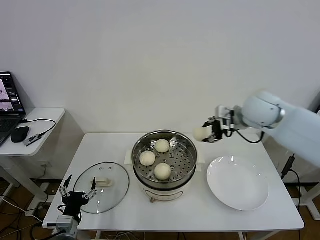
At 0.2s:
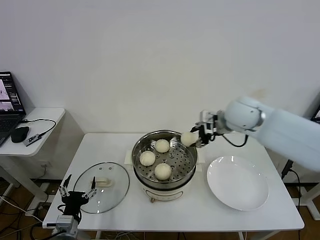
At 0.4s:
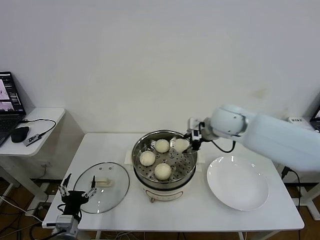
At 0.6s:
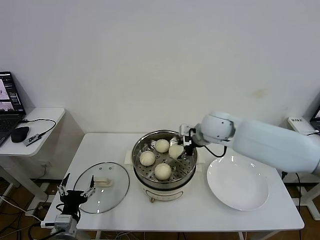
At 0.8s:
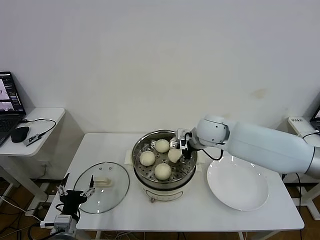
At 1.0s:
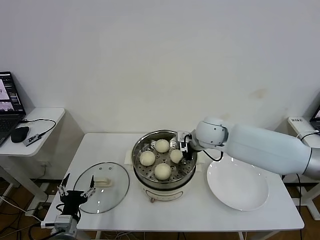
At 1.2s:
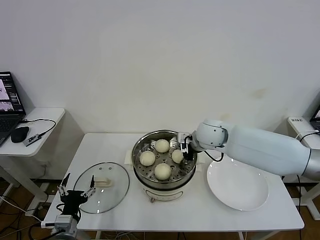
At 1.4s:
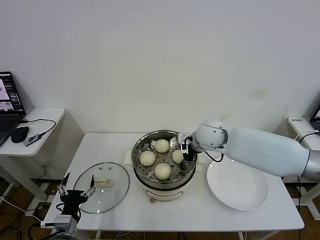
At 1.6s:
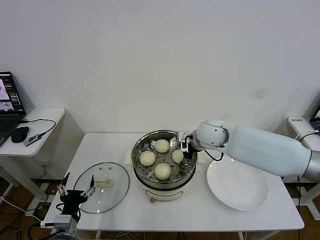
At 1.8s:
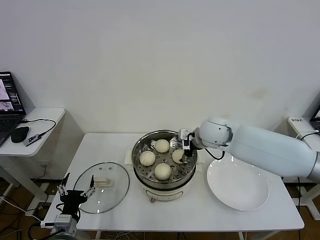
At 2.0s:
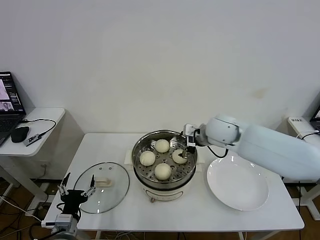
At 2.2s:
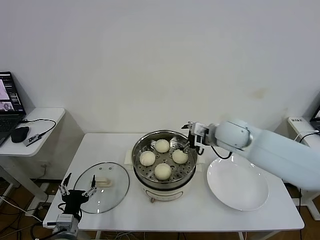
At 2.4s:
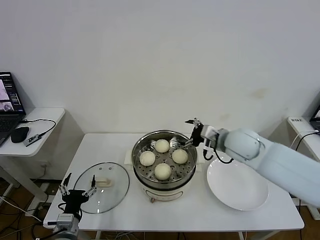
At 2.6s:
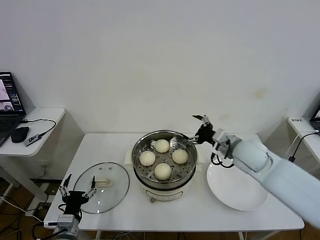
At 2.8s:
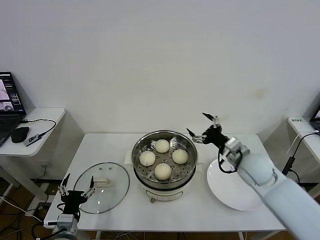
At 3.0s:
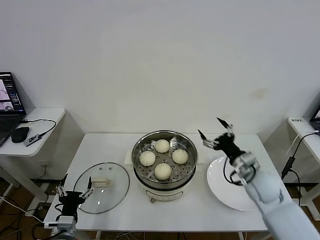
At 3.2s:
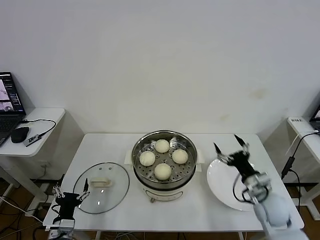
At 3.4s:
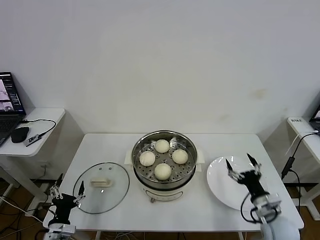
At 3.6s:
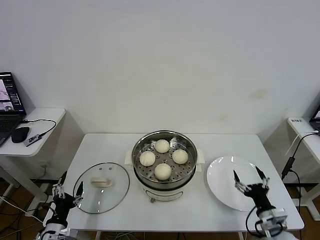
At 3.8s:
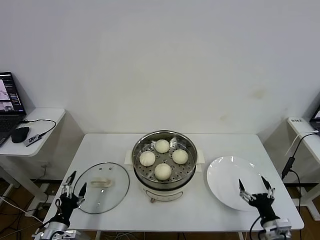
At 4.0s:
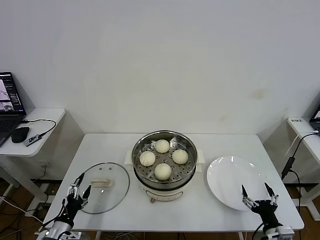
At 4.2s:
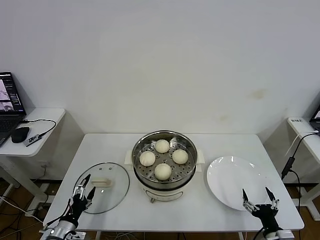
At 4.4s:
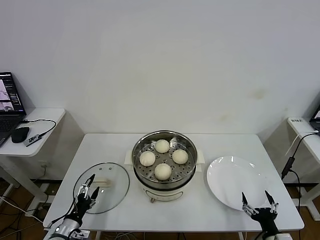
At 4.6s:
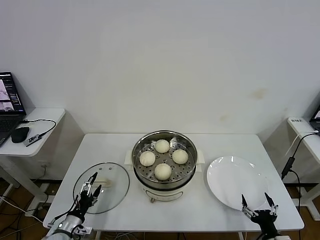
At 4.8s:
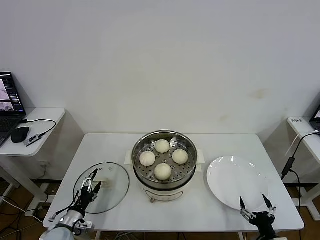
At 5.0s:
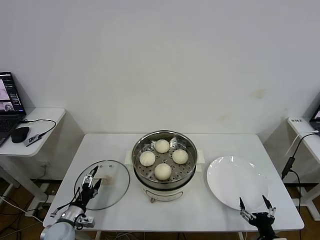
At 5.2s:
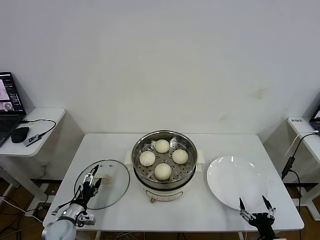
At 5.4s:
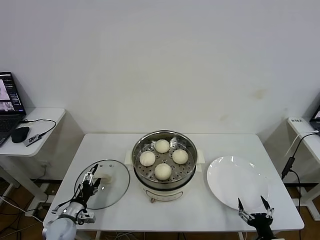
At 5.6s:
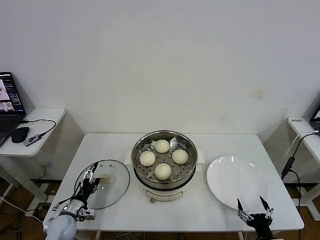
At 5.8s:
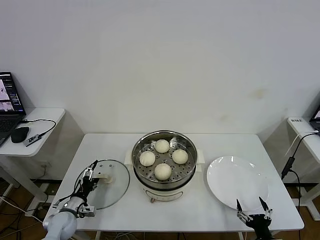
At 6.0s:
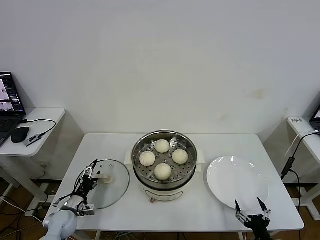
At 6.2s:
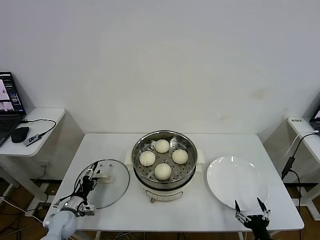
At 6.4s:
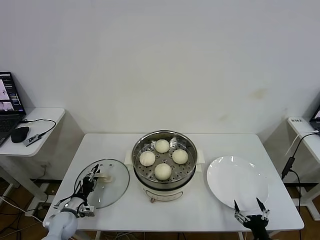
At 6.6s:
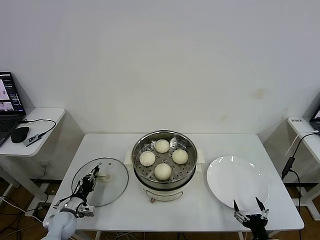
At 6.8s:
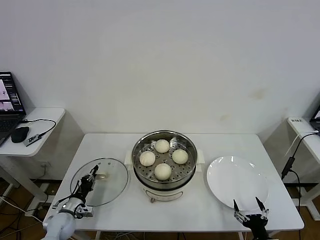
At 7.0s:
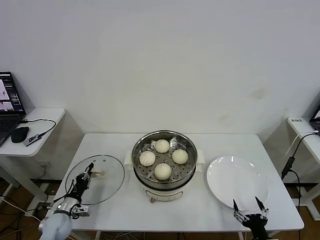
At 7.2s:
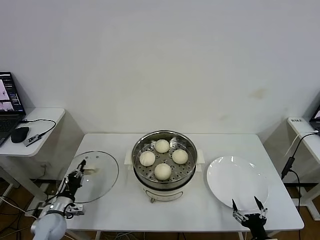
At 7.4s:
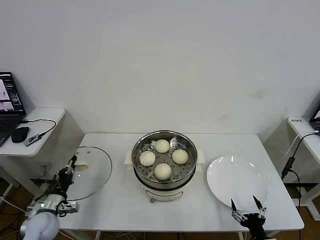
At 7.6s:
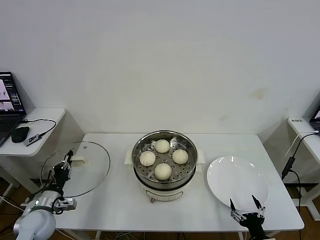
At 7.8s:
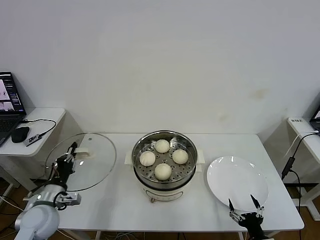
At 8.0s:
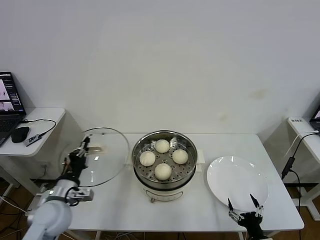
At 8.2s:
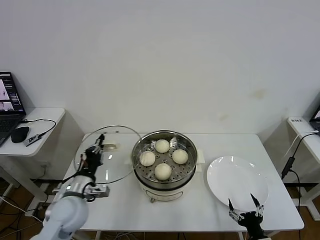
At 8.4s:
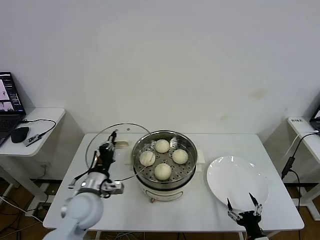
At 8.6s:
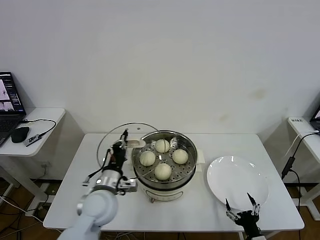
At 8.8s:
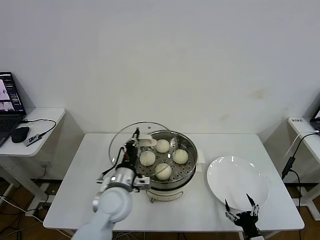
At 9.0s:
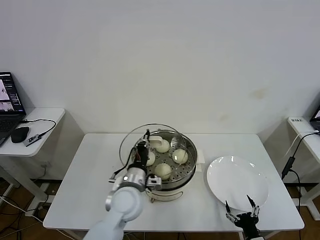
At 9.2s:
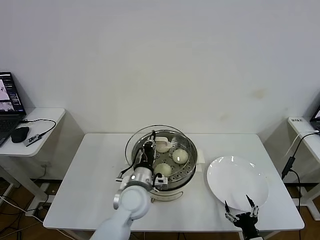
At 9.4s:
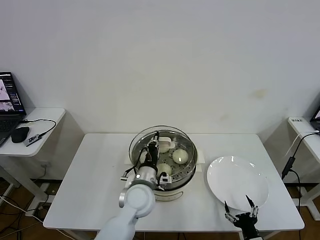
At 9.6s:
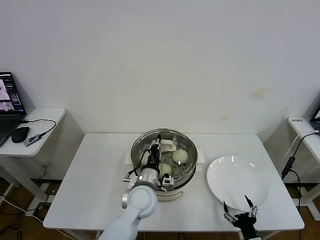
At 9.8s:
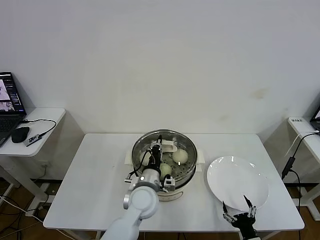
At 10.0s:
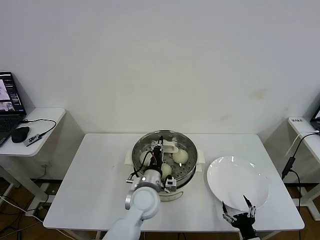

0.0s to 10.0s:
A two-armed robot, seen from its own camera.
Task of the whole recording: take steamed baozi put them in steamer then cover it.
Step, 0.0s to 1.6s: Place the baozi on the steamer with right gripper.
Step, 1.8s to 6.8s: Grasp the pot lid with left gripper.
0.0s to 1.4s: The right gripper heads to the left and downward, covering about 15 cm.
1.4s to 2.8s: The right gripper is displaced to the right and backward by some 15 cm, and opens.
2.8s to 4.2s: The left gripper is displaced to the left by some 5 cm, while the right gripper heads backward and downward, covering some 30 cm.
4.2s to 5.8s: The left gripper is displaced forward by roughly 10 cm.
5.8s to 7.2s: The left gripper closes its fingers.
7.2s to 8.6s: The left gripper shifts about 25 cm to the right and upward.
8.6s to 10.0s: The left gripper moves to the right, about 15 cm.

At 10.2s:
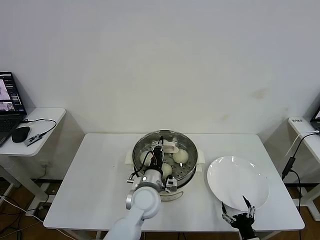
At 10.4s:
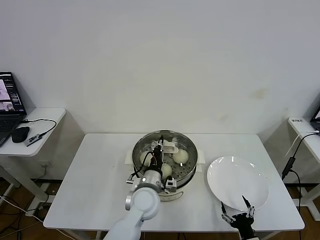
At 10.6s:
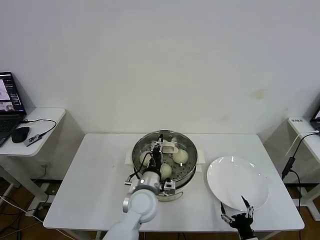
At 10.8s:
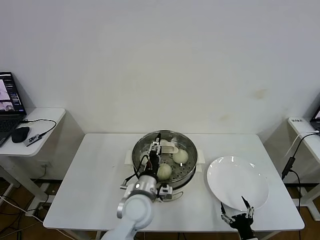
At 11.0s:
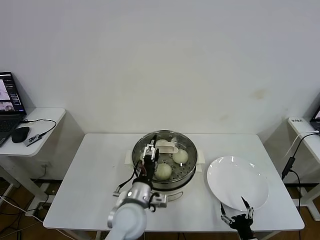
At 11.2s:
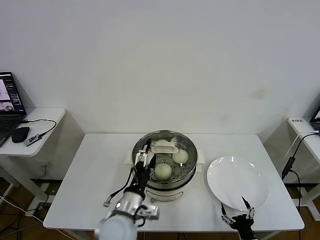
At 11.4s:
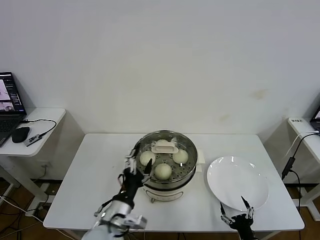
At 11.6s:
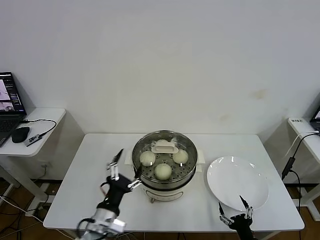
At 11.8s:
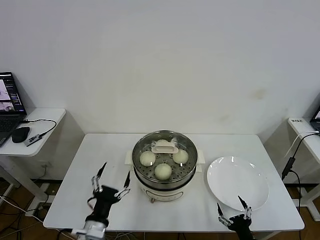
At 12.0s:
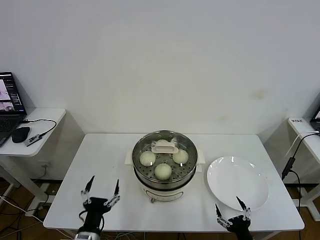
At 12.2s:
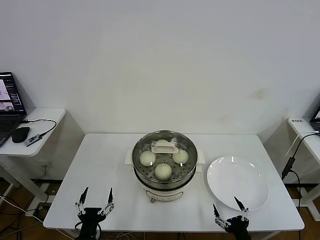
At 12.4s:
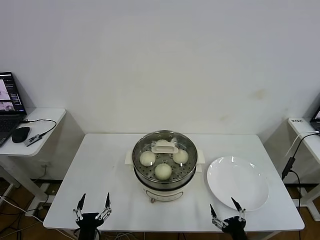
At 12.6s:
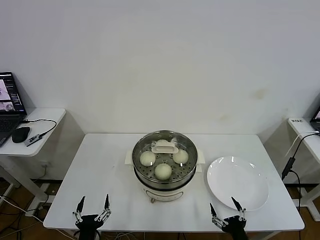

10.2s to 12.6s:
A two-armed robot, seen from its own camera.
Task of the whole recording: take steamed baozi put them in steamer then cover it.
10.2s to 11.4s: The left gripper goes about 15 cm backward and to the left, and opens up.
11.4s to 12.6s: The left gripper is displaced downward, to the left and backward by roughly 20 cm.

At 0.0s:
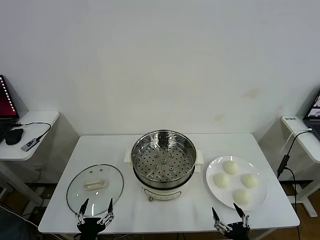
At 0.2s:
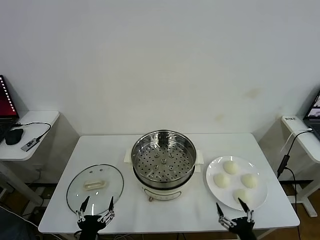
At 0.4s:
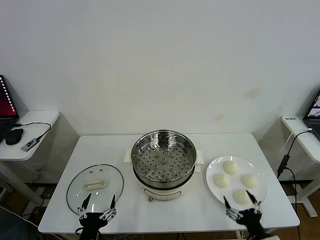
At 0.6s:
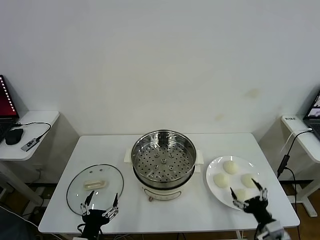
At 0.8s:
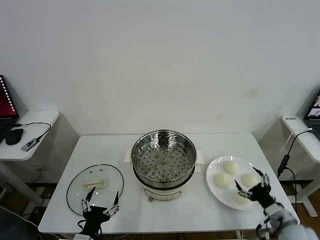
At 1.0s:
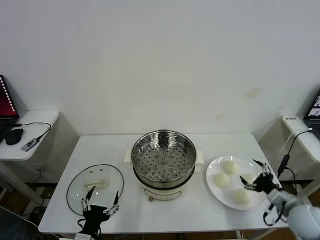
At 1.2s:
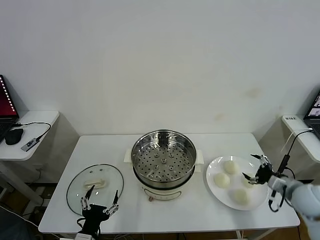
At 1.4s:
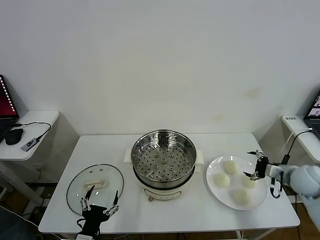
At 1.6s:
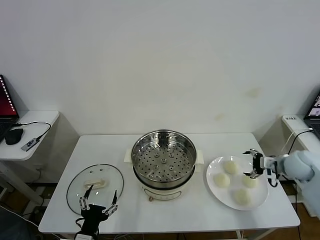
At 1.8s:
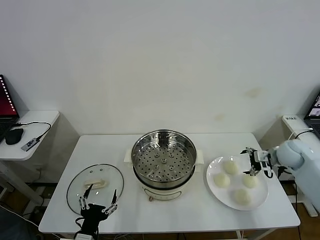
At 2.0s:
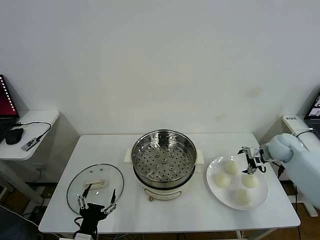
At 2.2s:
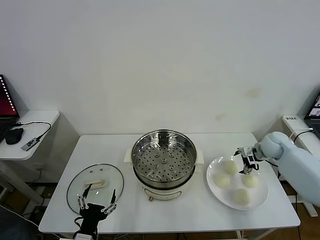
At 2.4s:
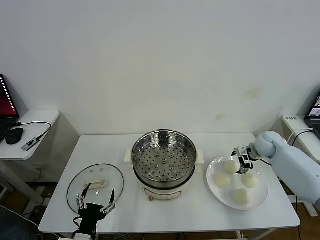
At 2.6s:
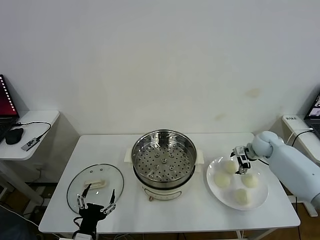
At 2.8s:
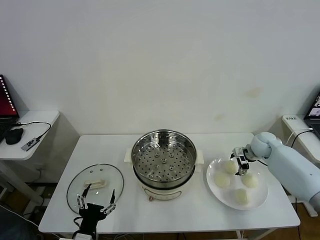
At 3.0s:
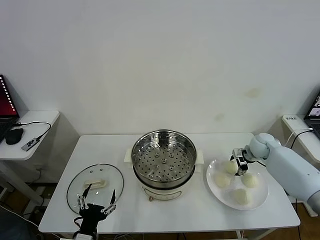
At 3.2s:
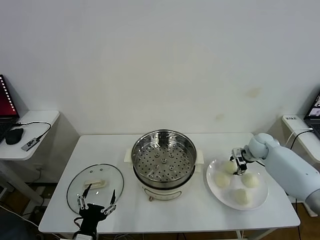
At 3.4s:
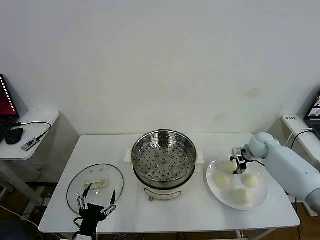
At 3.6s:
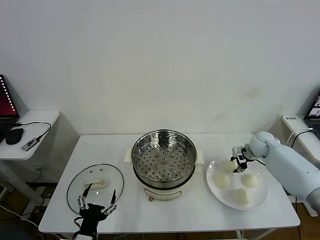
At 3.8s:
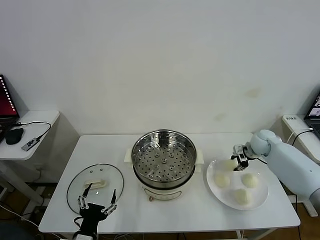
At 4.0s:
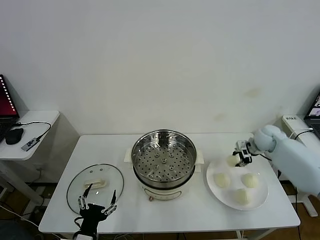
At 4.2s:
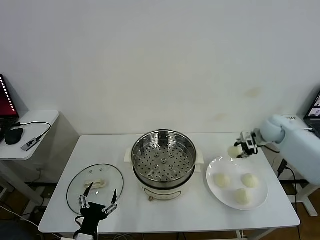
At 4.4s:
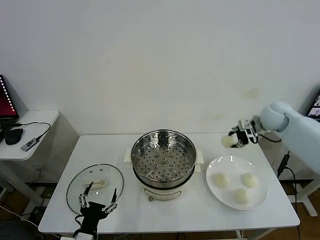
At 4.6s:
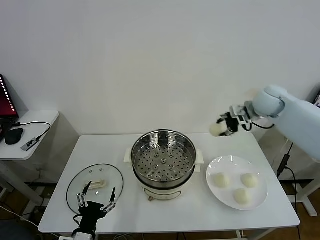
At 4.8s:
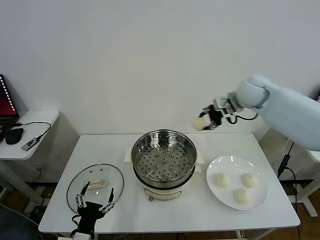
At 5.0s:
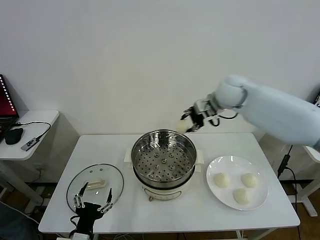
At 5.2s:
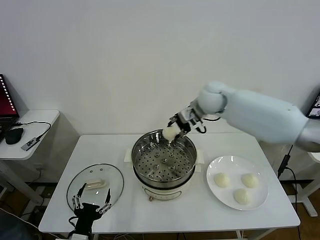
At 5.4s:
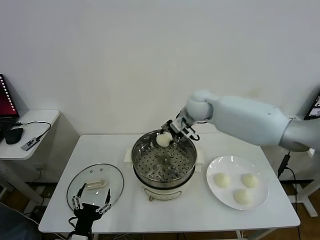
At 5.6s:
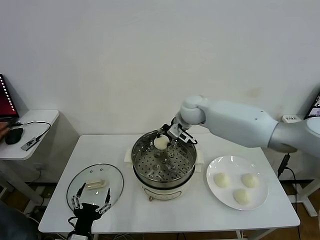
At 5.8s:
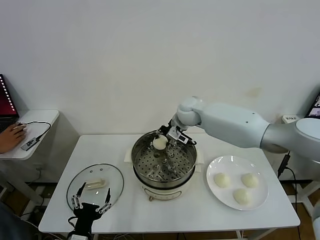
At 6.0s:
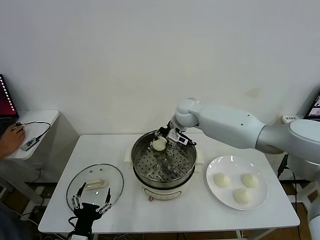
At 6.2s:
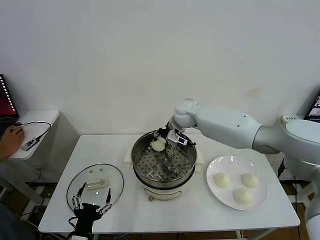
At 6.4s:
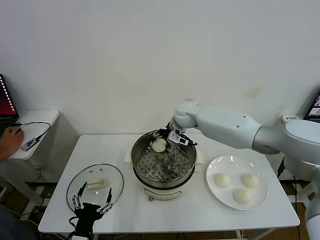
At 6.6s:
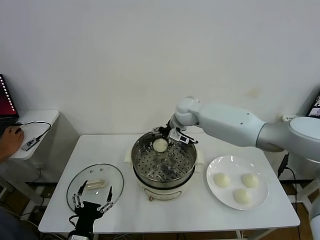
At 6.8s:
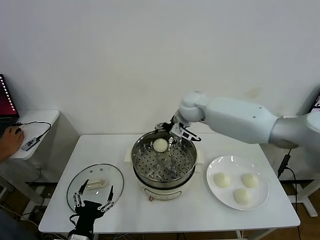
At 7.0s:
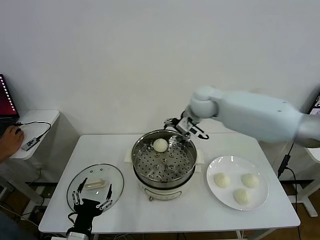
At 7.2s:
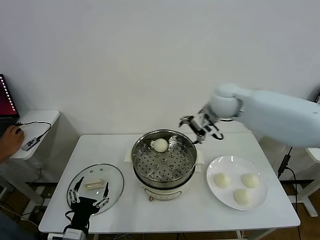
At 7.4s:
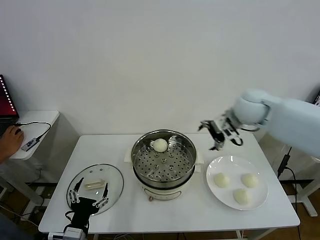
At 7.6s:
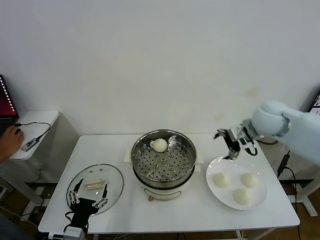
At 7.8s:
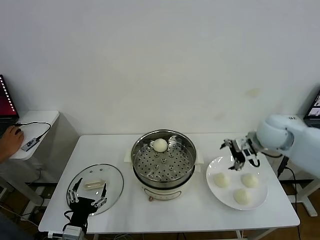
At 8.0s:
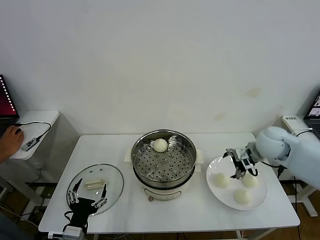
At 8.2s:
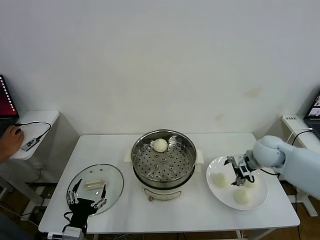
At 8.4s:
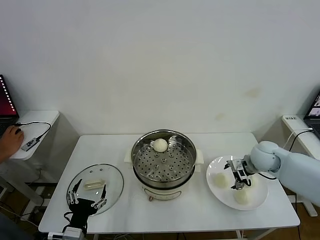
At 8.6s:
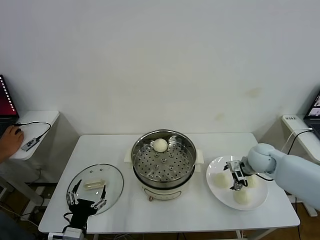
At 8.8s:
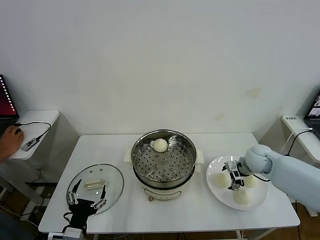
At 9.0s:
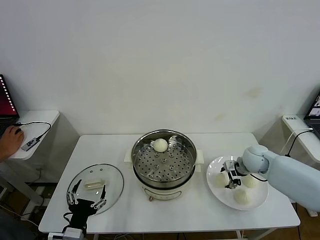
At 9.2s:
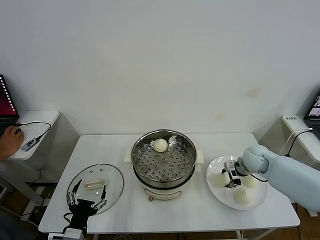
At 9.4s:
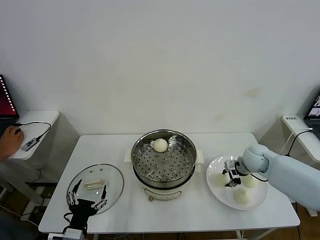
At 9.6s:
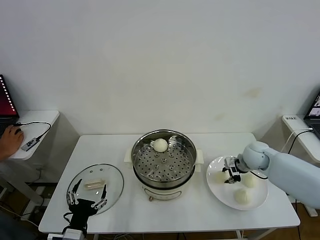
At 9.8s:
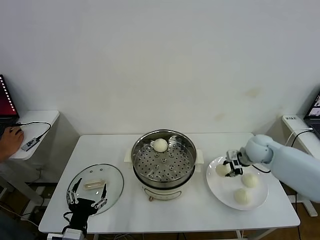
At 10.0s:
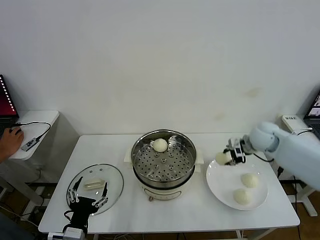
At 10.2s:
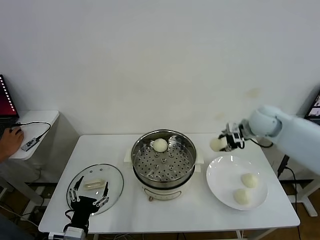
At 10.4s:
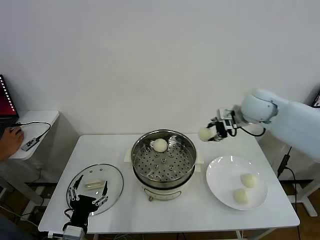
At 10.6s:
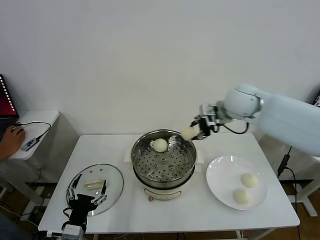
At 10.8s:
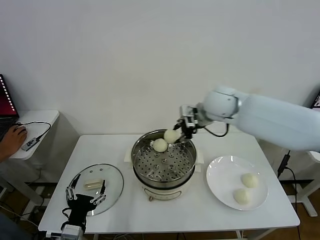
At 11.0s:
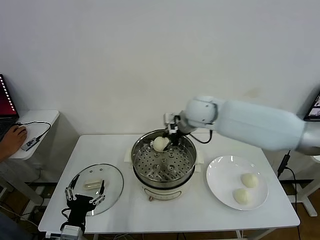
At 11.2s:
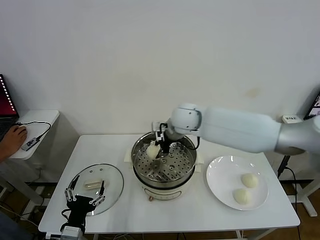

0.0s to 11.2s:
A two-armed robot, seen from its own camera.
Task of the whole recording: take steamed baozi put them in steamer then cover it.
Step, 0.0s to 3.6s: Grasp the baozi in the plate with right gripper.
Step, 3.8s to 6.4s: Place the baozi on the steamer with right gripper.
Step, 6.8s to 9.4s: Grasp the baozi in the plate with right gripper.
1.6s to 3.2s: The right gripper moves forward, to the left and downward, about 15 cm, and closes.
3.2s to 4.8s: The right gripper heads upward and to the left, covering some 25 cm, and closes.
4.8s to 6.4s: The right gripper is displaced to the left and downward by about 20 cm, and opens its fingers.
6.4s to 8.0s: The right gripper heads to the right and backward, covering about 30 cm, and opens.
8.0s to 9.6s: The right gripper goes approximately 10 cm downward, and closes.
9.6s to 11.2s: The right gripper shifts roughly 30 cm to the left and upward.
